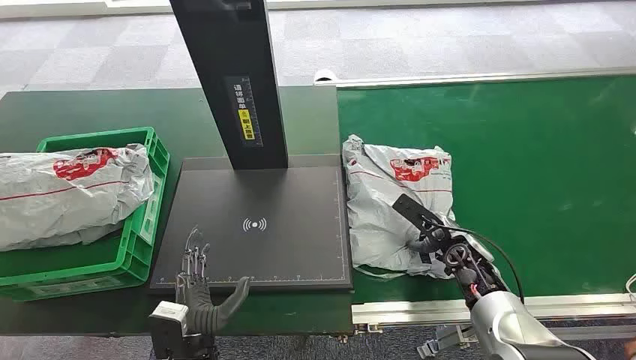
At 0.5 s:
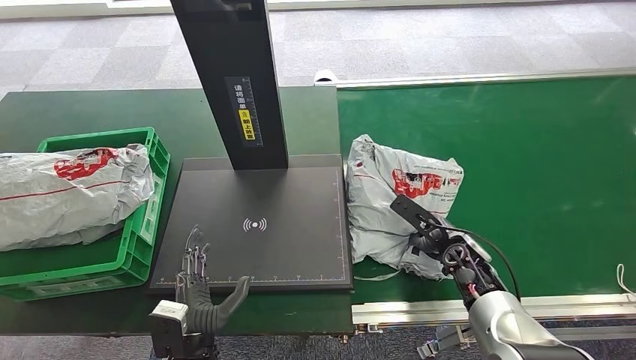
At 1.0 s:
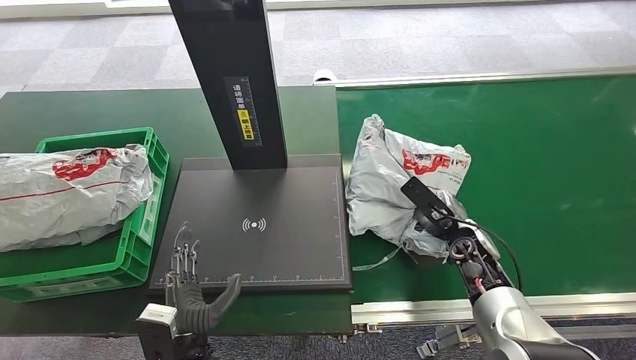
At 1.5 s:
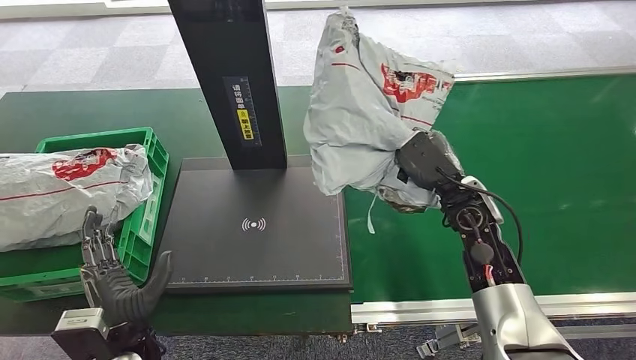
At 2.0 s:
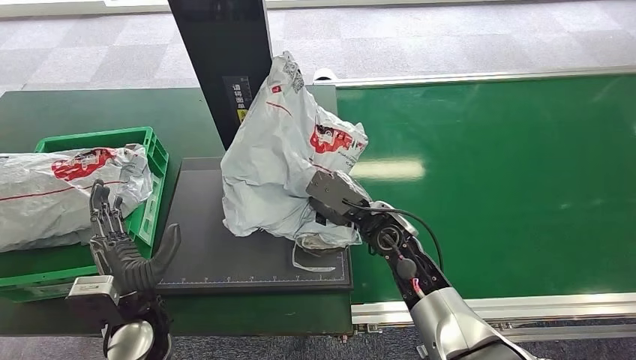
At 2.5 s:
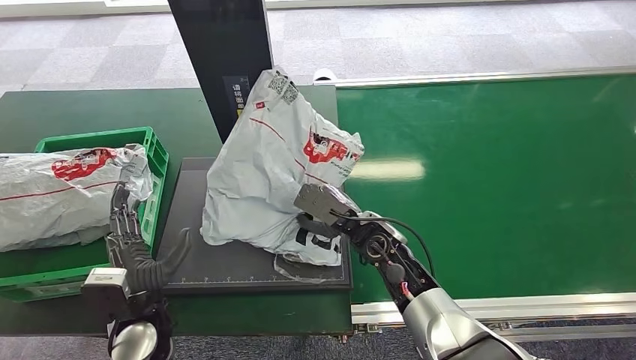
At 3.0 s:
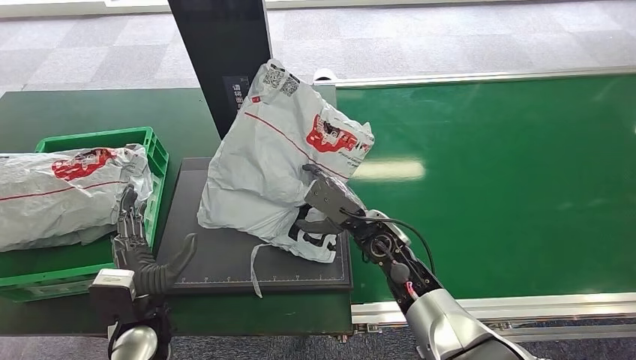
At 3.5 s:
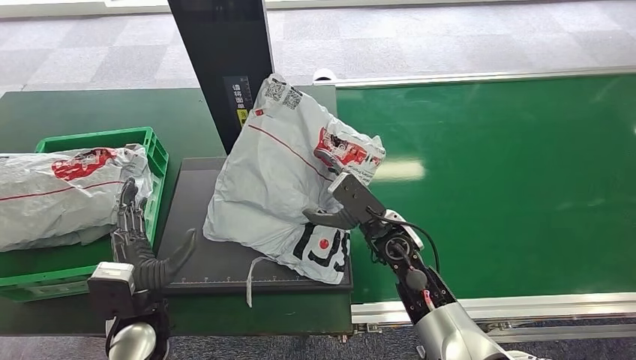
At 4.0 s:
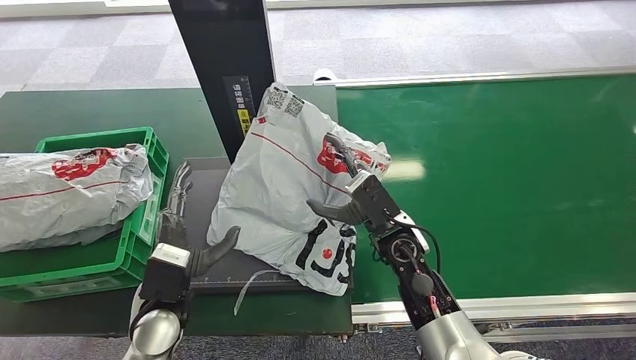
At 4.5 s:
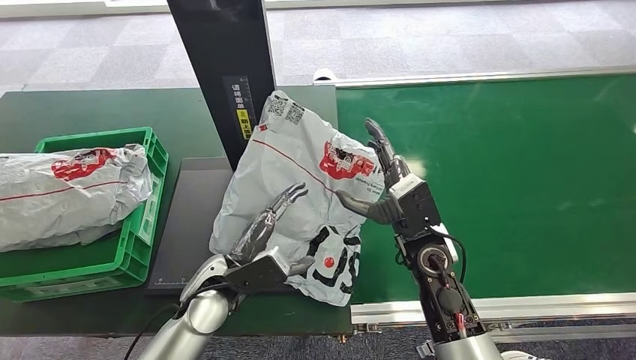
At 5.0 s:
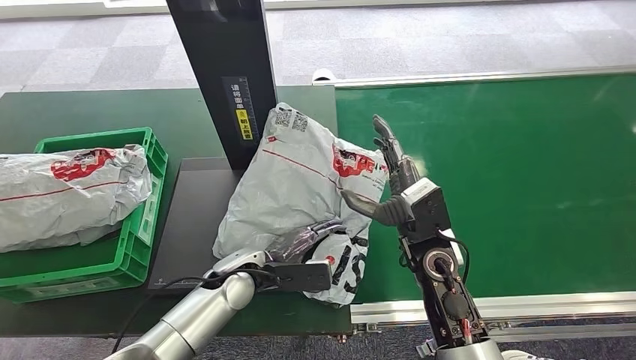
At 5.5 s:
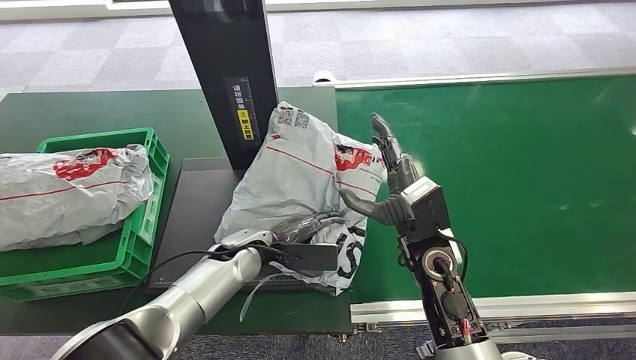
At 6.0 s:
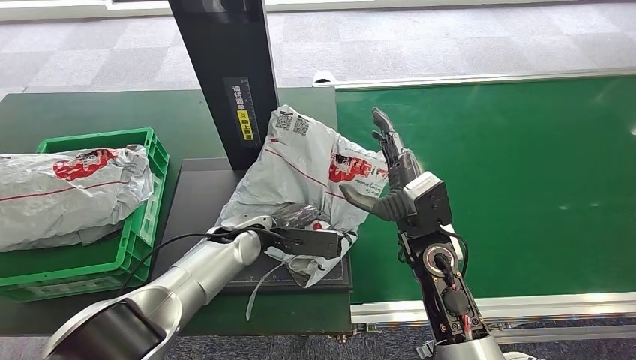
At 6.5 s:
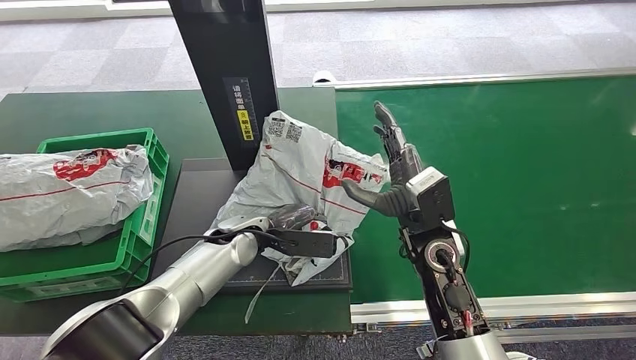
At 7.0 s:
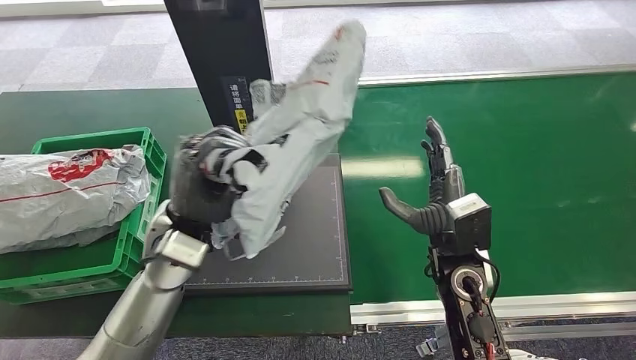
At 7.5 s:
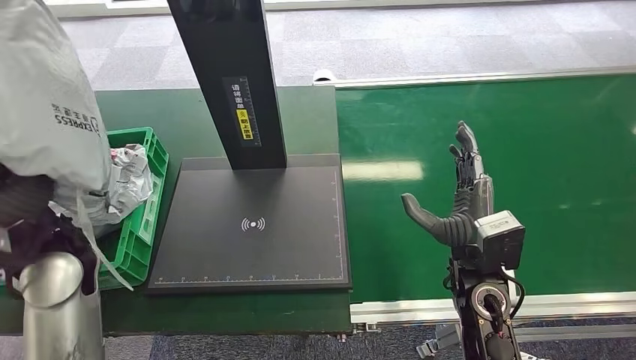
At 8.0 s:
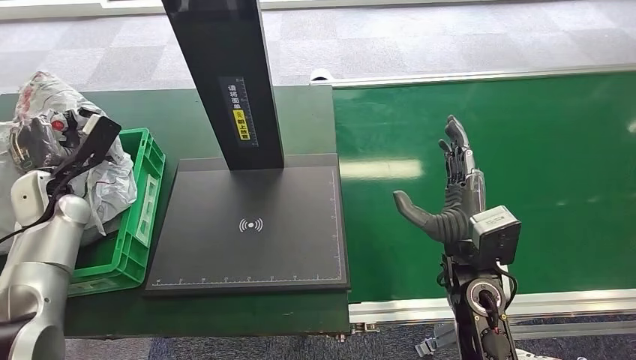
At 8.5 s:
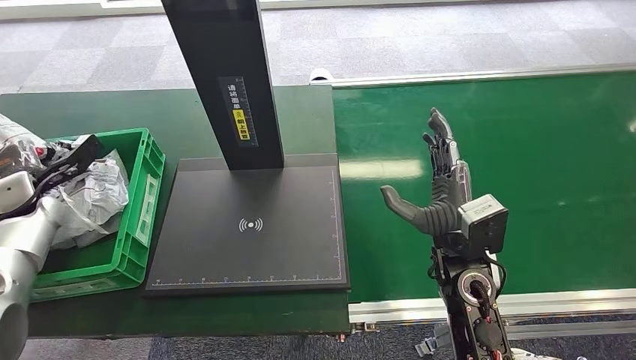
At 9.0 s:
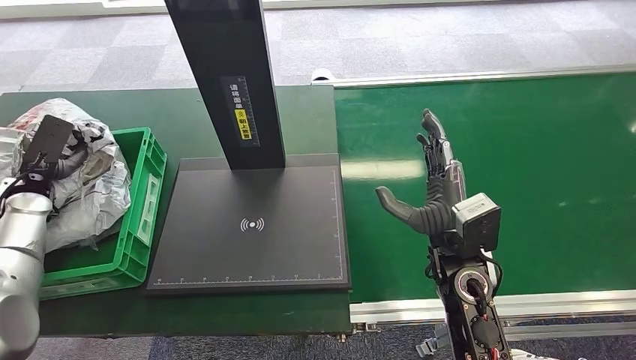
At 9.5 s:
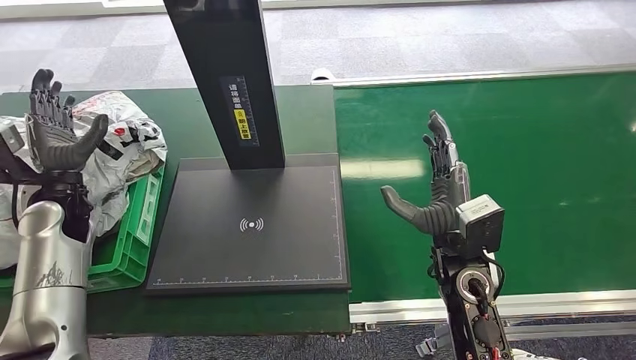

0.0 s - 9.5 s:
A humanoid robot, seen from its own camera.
Task of the whole recording: Weigh the package on the weighing device and place it in the left basket.
Step, 0.0 s - 1.5 s: Pick up the package from the conveyor belt.
Step, 2.0 s - 5.0 s: Place the package onto the inbound machine.
Step, 5.5 s - 7.5 s: Pick up the package from the inbound machine.
Step, 8.0 s - 9.5 s: Place the package into the parcel locker.
